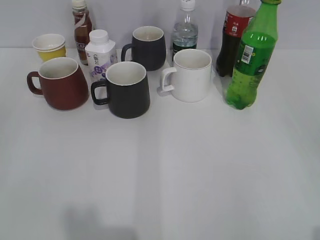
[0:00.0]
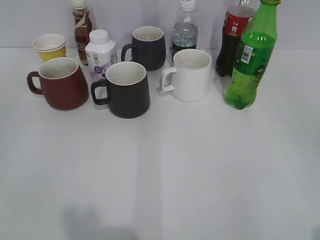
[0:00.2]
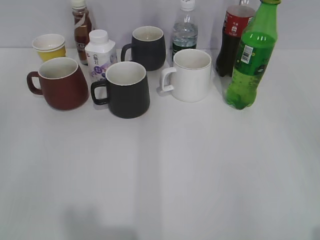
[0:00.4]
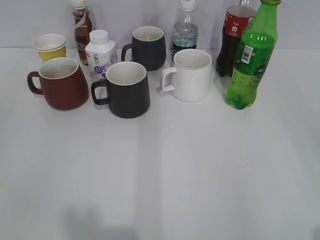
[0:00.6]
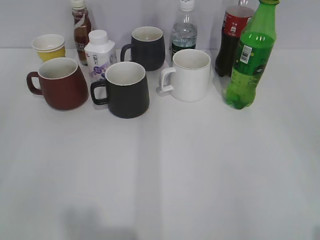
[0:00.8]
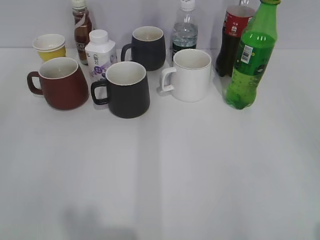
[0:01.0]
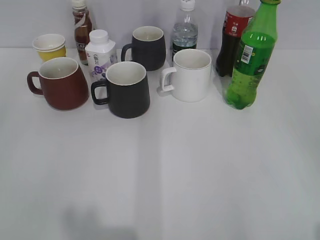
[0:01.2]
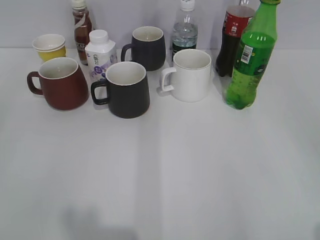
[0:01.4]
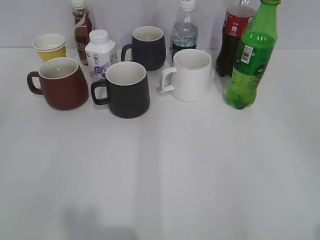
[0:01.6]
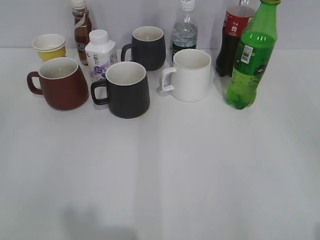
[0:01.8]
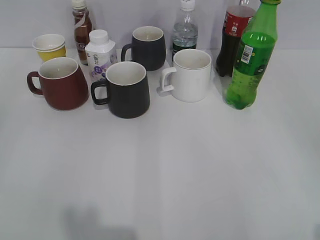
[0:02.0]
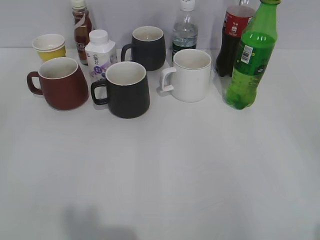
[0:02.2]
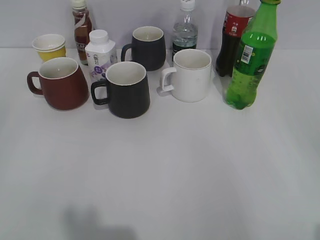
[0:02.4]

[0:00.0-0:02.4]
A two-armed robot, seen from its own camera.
1.2 to 2.4 s: Both grippers stay put.

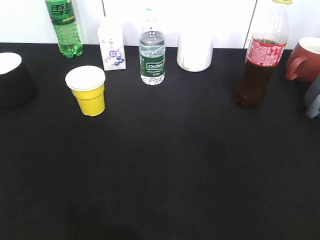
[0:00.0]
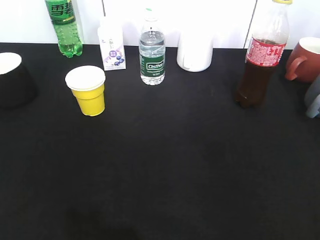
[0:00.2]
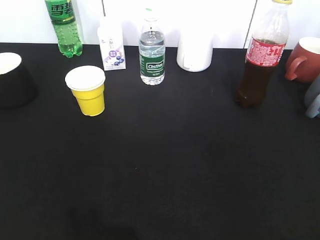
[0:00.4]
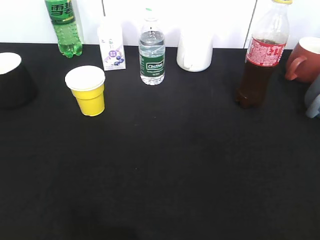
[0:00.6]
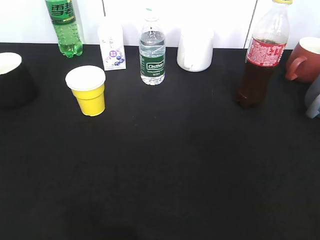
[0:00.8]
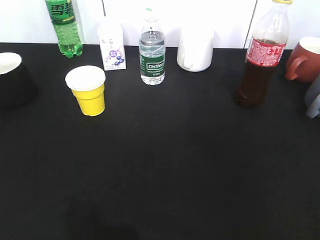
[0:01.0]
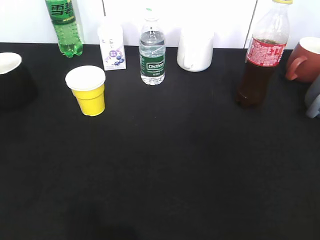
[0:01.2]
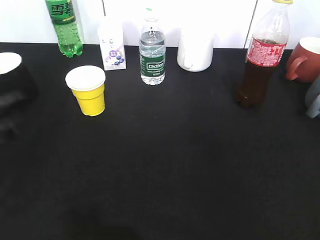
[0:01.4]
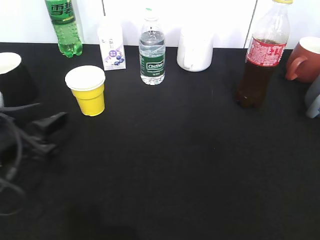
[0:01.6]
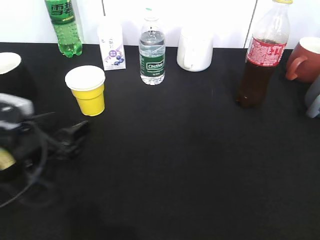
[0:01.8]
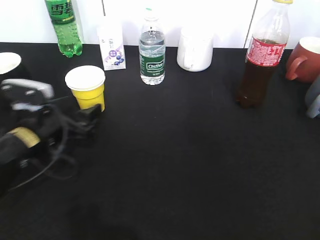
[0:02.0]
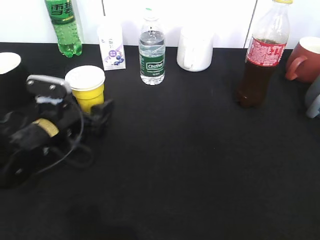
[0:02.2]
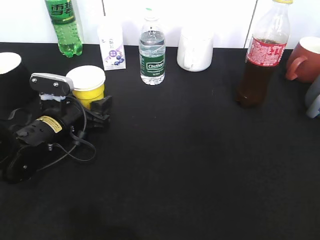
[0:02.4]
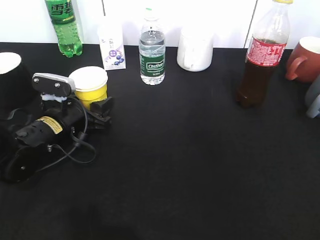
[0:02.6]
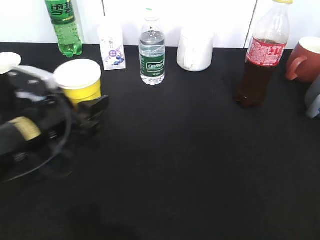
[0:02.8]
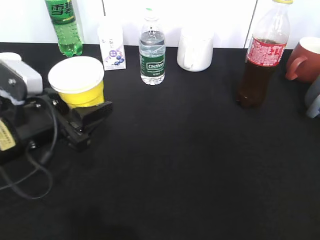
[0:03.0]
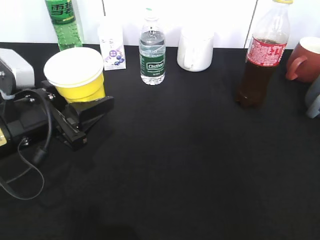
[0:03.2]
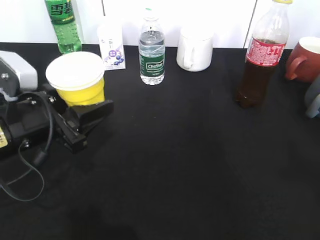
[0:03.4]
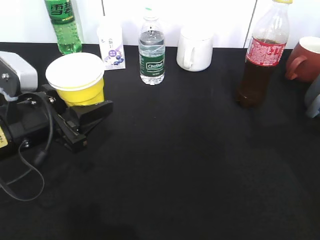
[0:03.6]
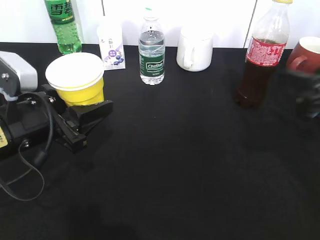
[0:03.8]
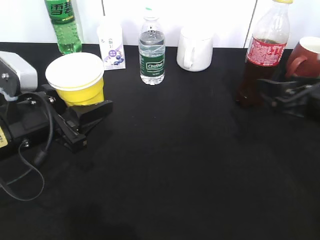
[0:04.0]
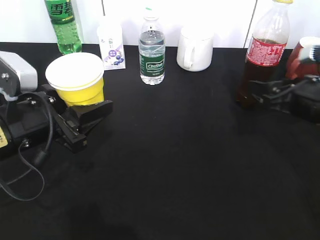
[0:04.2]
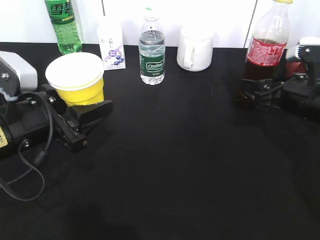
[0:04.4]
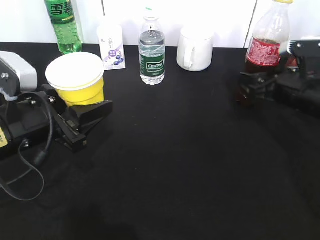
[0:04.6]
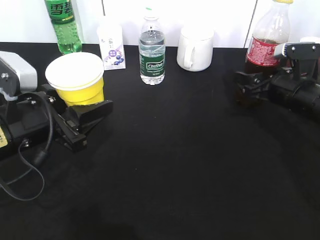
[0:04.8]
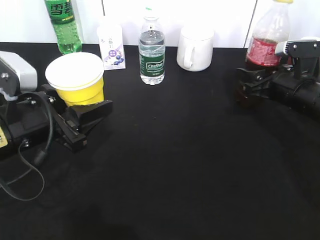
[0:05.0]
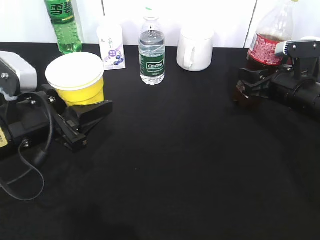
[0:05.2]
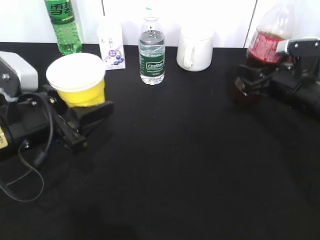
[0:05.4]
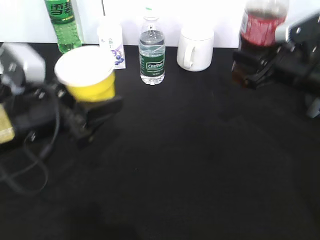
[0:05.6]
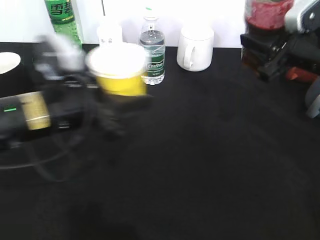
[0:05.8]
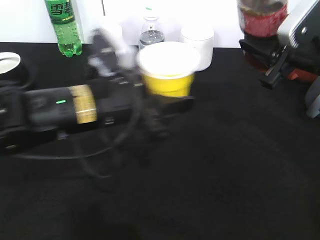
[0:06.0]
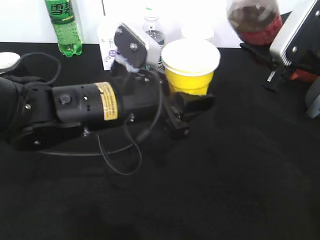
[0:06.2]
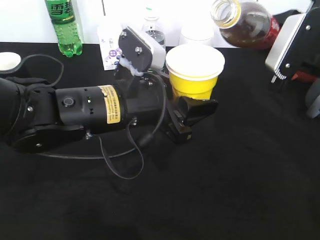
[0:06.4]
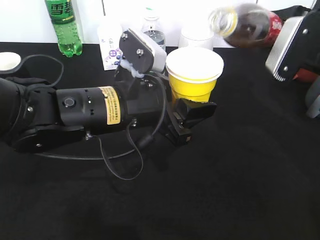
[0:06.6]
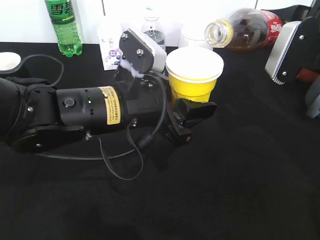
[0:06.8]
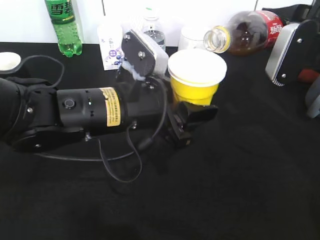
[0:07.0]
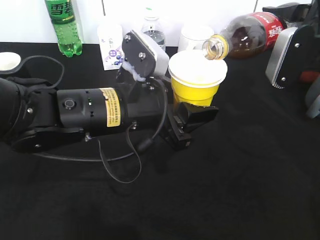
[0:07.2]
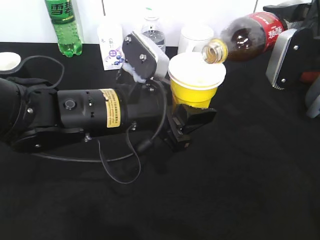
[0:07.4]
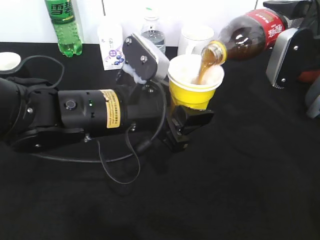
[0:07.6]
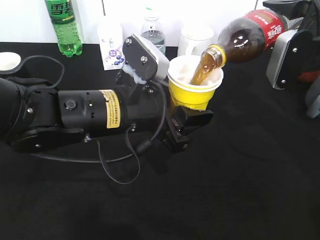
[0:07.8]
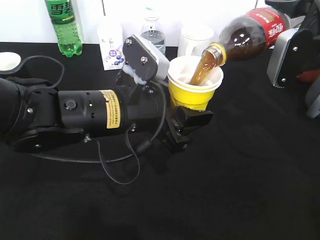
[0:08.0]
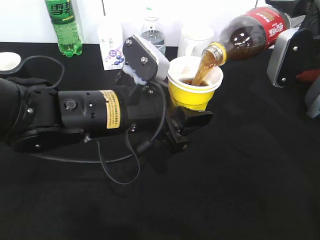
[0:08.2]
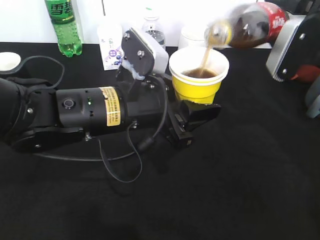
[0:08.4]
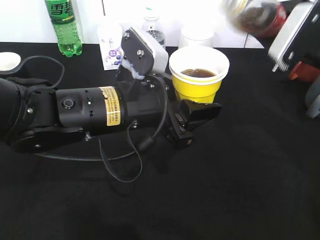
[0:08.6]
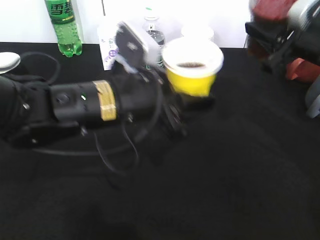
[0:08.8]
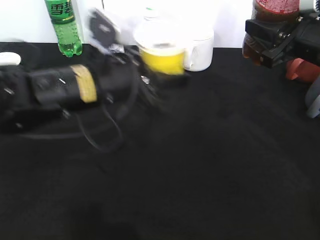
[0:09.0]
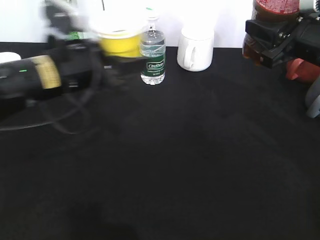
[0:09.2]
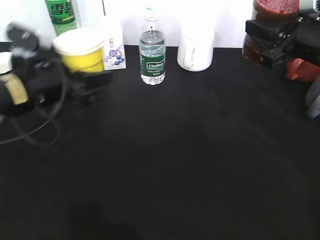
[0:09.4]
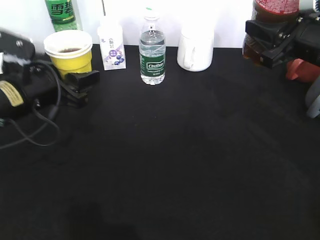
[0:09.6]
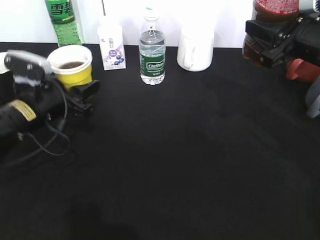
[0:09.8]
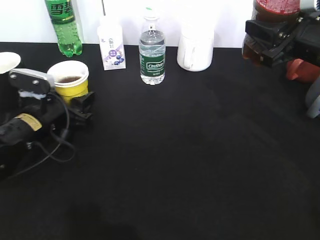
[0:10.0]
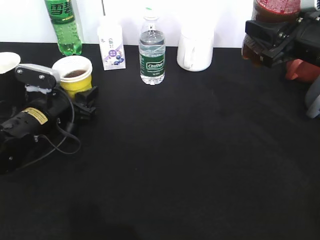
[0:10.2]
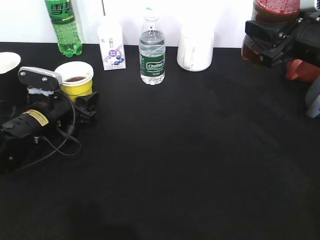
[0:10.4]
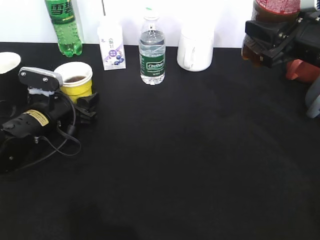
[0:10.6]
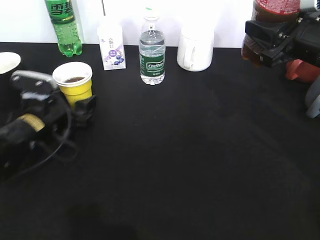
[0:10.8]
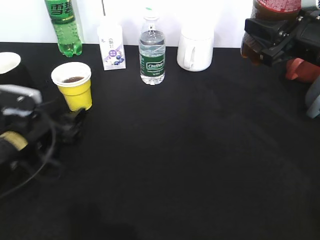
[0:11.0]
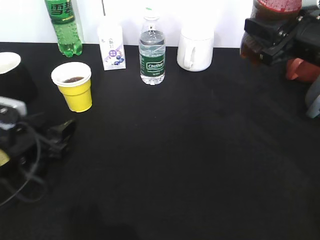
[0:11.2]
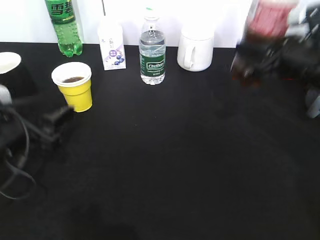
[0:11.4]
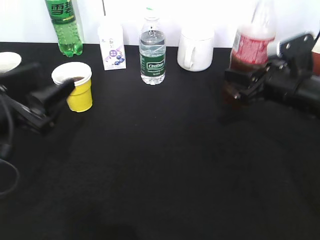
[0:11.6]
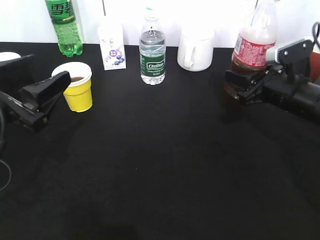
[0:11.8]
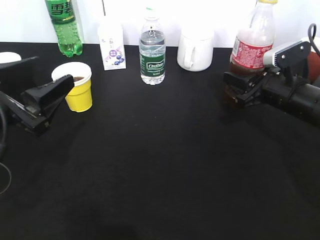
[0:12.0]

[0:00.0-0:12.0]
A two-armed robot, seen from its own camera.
Step, 0.0 to 2.6 s: Grasp the yellow paper cup with left gripper.
Step, 2.8 to 3.4 s: Lift the yellow paper cup with left gripper.
Step, 3.6 to 5.4 s: Grasp the bottle with cola with right gripper.
Step, 5.6 to 8.2 s: Pour the cola from bottle to cup with right gripper.
Step, 8.6 to 10.8 s: Place the yellow paper cup on the table with left gripper.
0.0 to 1.6 s: The left gripper travels forward, downward and to the right by approximately 25 cm, and opens.
1.6 to 3.0 s: The left gripper goes forward and returns, about 10 cm each way, and opens, then closes again.
3.0 to 4.4 s: The right gripper goes about 35 cm forward and downward.
4.4 to 6.0 s: The left gripper travels to the right by approximately 10 cm; the right gripper goes approximately 10 cm upward, and closes its fingers.
7.6 to 9.0 s: The left gripper moves approximately 5 cm.
9.0 to 10.4 s: The left gripper moves downward, to the left and forward, roughly 20 cm.
10.4 to 12.0 s: The left gripper is displaced backward and upward by some 15 cm; the right gripper moves downward, approximately 10 cm.

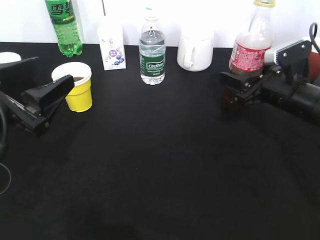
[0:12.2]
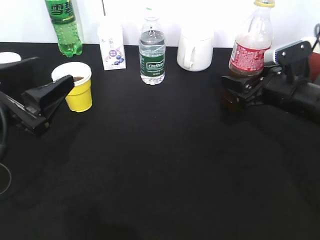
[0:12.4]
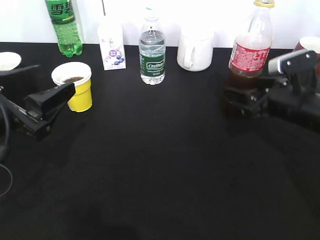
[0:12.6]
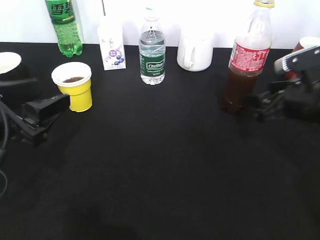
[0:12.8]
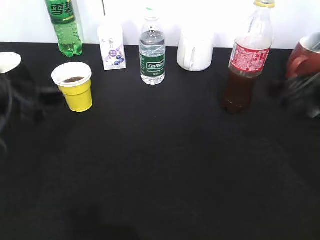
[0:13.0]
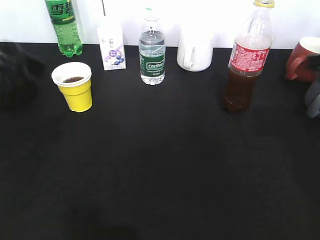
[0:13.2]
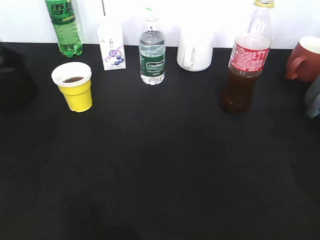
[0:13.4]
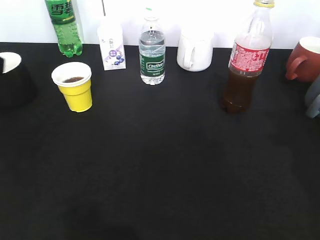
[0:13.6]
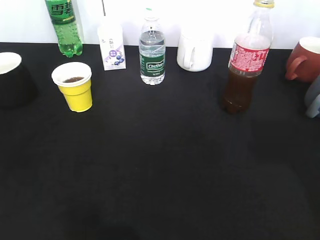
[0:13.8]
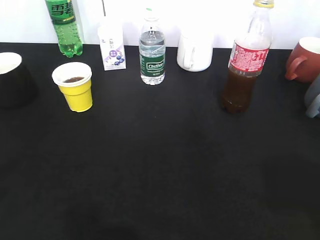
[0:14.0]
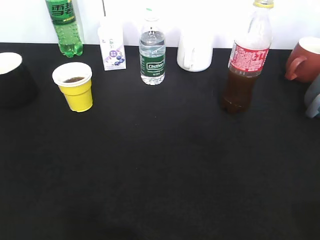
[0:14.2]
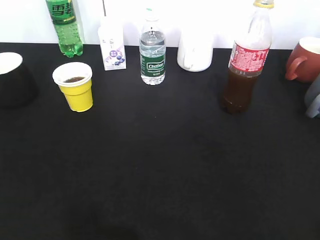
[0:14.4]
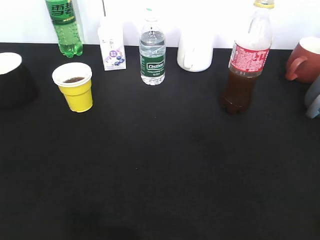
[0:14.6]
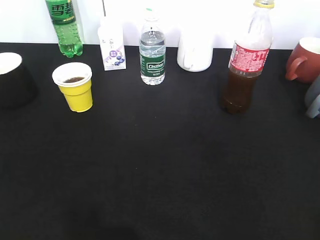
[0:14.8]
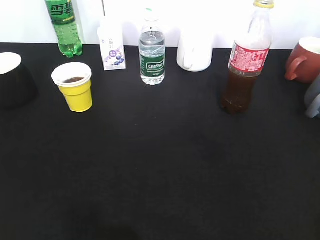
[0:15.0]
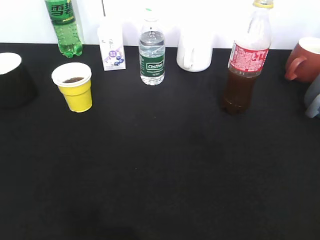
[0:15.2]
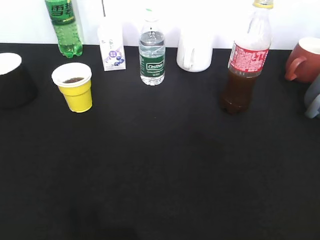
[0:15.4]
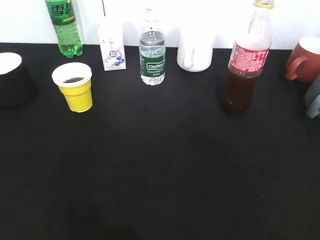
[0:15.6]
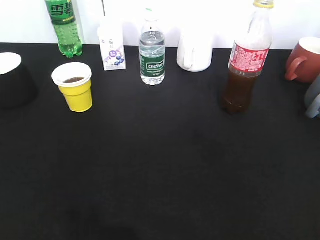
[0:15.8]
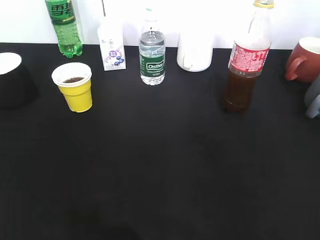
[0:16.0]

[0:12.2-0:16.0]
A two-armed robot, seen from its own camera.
12.2 to 13.4 s: The left gripper is displaced upward by approximately 10 cm. Meanwhile the right gripper shifts some 20 cm upward, backward and to the right.
13.4 to 14.8 s: The left gripper heads backward and to the left, covering roughly 20 cm; the right gripper travels backward by roughly 20 cm.

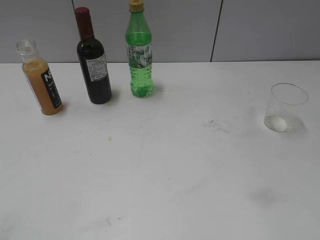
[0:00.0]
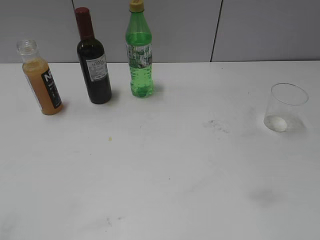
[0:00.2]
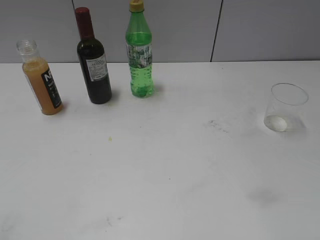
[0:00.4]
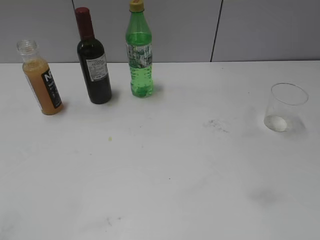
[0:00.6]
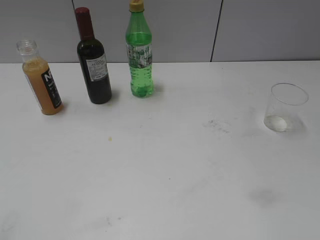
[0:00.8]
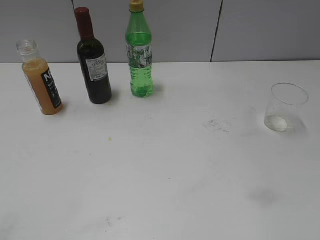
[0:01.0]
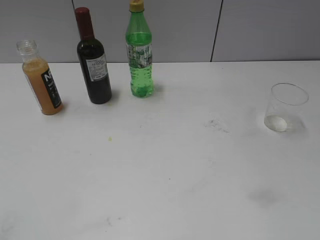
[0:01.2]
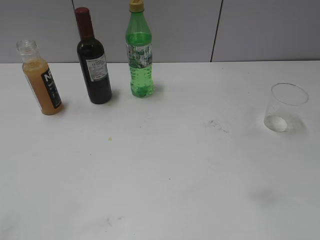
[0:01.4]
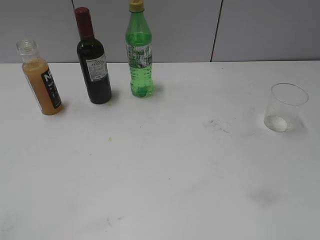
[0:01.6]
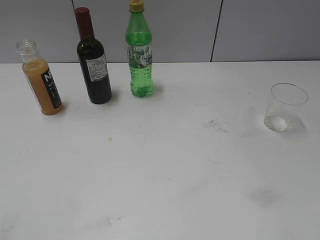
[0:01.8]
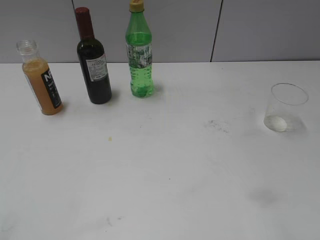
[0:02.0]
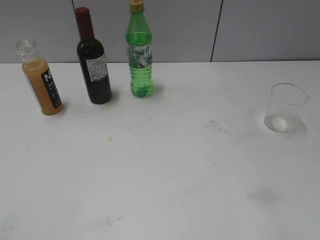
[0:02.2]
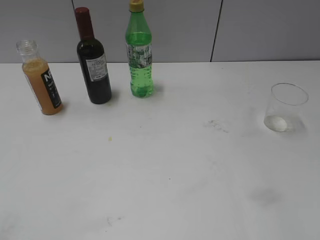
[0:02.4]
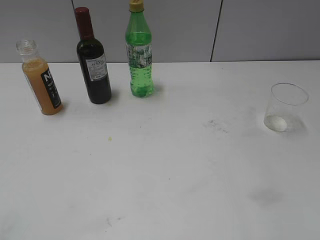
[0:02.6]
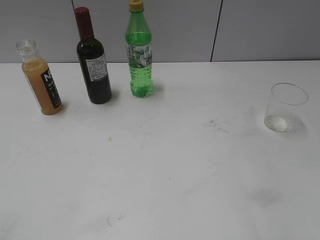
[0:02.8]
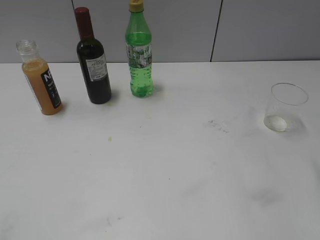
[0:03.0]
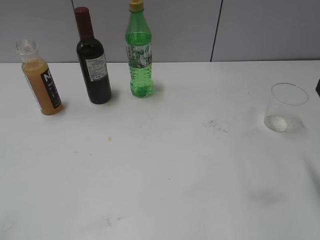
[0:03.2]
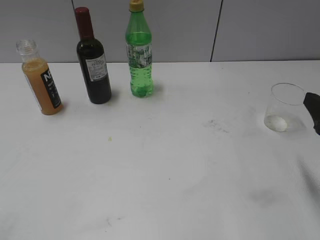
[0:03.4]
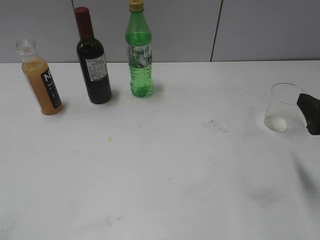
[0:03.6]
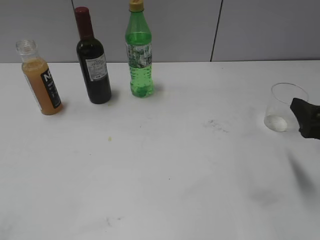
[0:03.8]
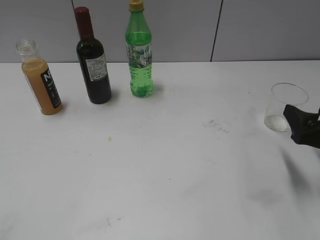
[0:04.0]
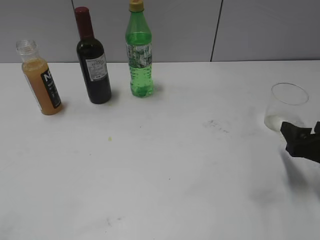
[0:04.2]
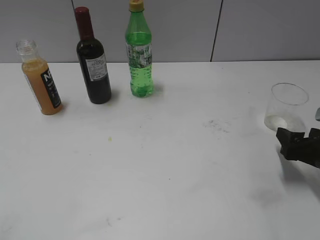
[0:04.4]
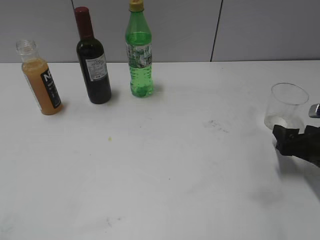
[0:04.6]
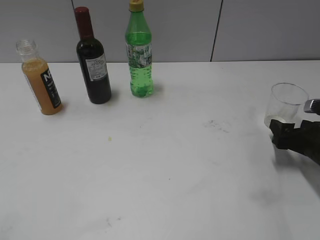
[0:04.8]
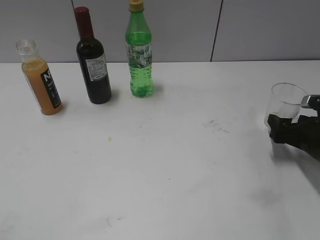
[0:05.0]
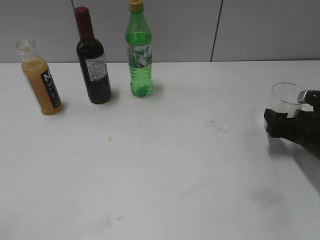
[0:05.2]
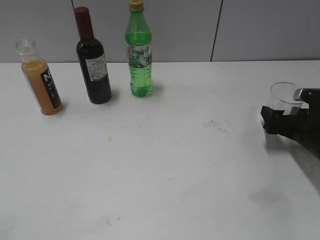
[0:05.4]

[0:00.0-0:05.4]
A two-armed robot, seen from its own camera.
2.8 to 4.0 s: The right gripper heads downward and forward, covering approximately 15 cm, and opens.
4.0 to 5.4 s: The right gripper moves forward and downward, some 10 cm.
